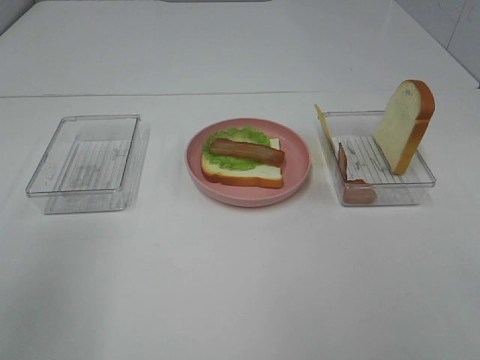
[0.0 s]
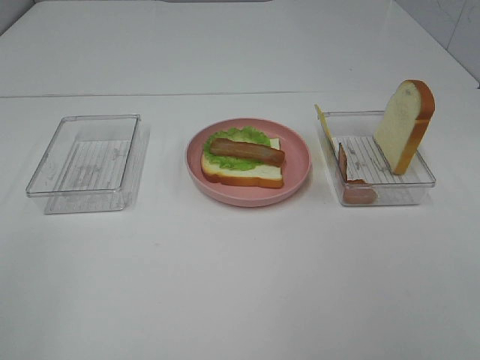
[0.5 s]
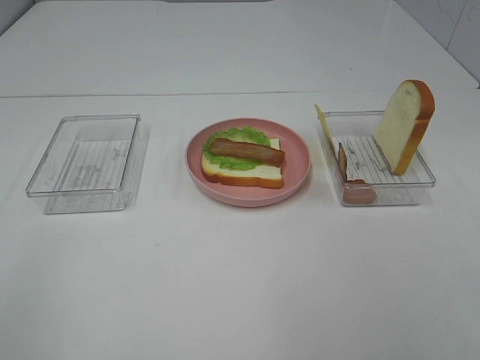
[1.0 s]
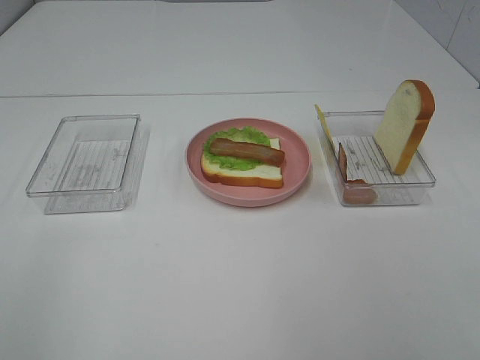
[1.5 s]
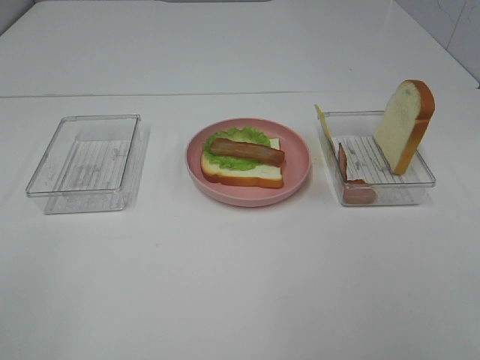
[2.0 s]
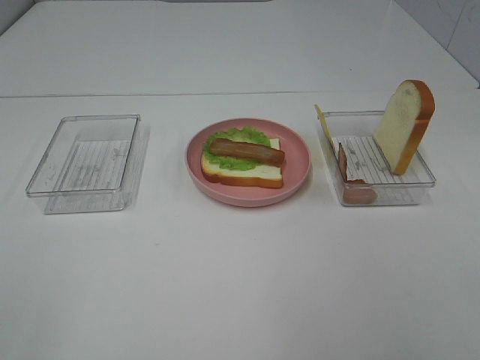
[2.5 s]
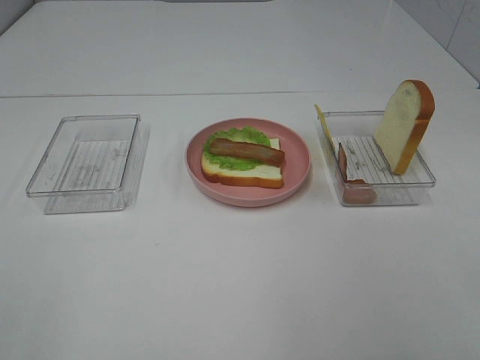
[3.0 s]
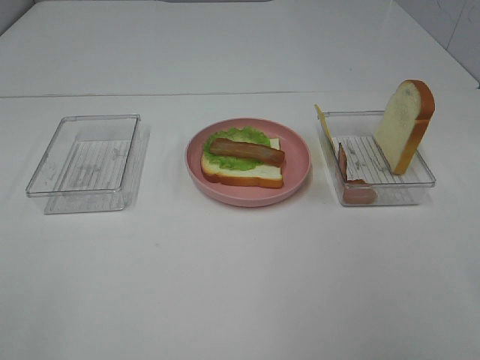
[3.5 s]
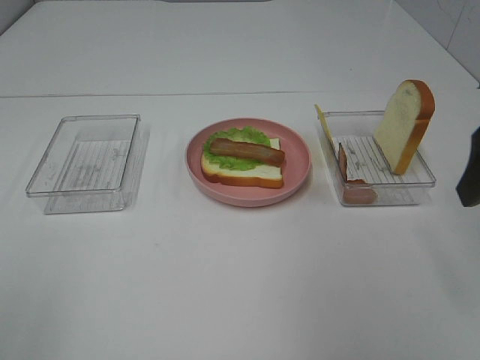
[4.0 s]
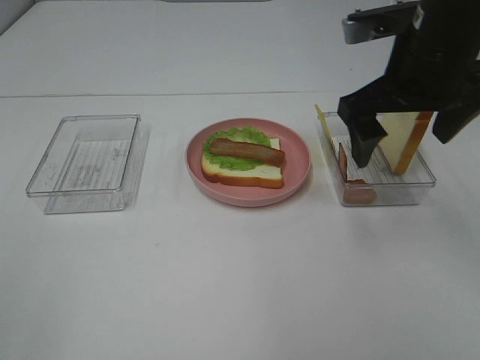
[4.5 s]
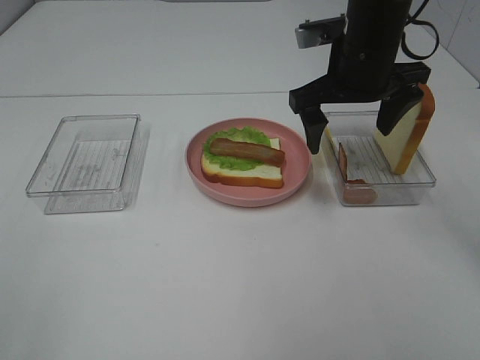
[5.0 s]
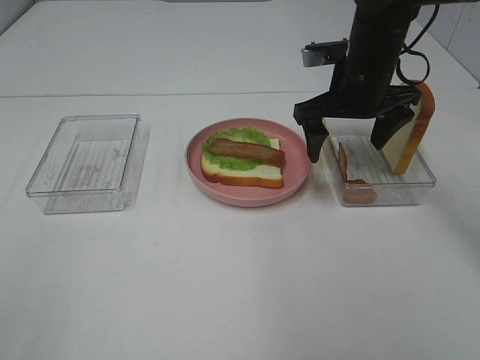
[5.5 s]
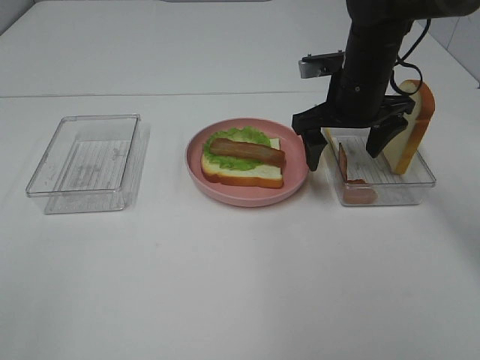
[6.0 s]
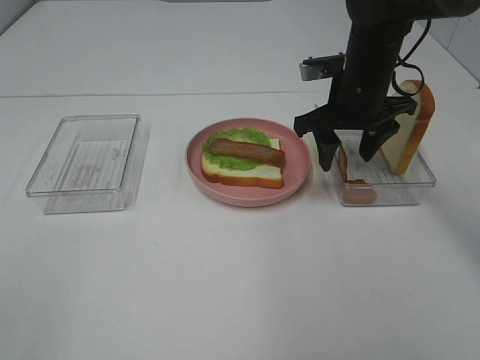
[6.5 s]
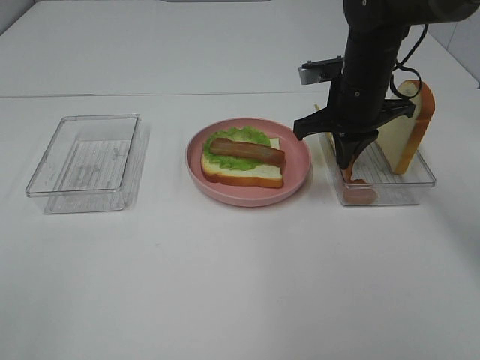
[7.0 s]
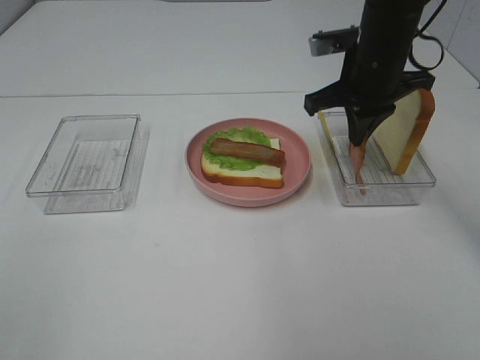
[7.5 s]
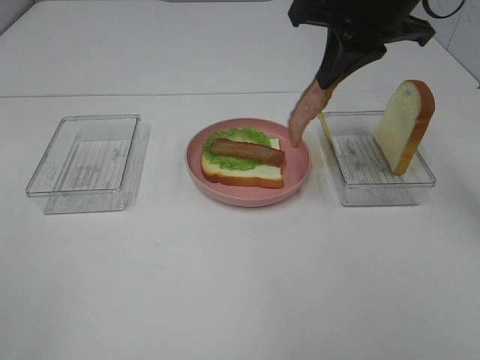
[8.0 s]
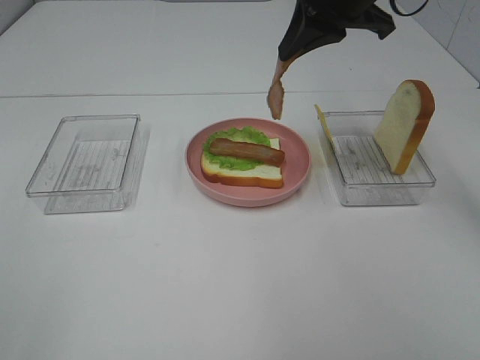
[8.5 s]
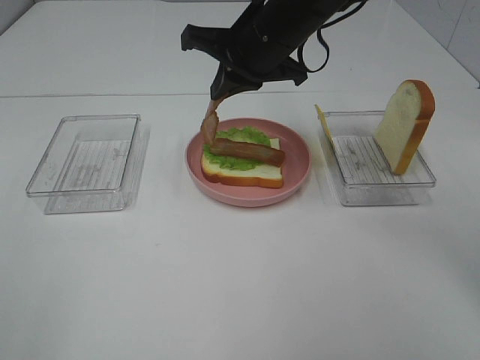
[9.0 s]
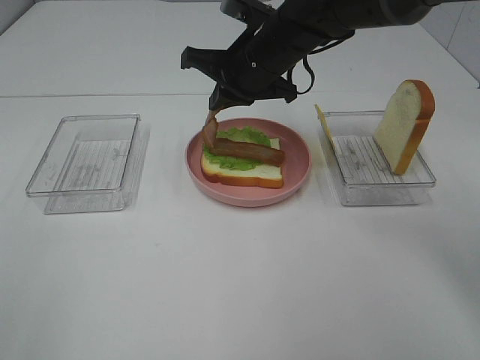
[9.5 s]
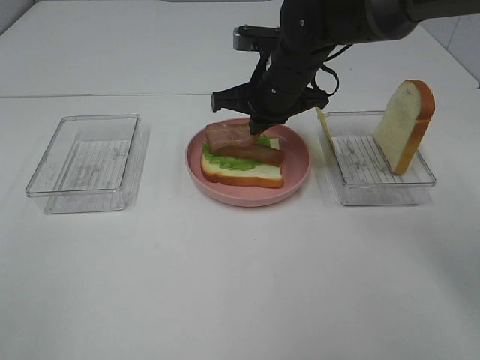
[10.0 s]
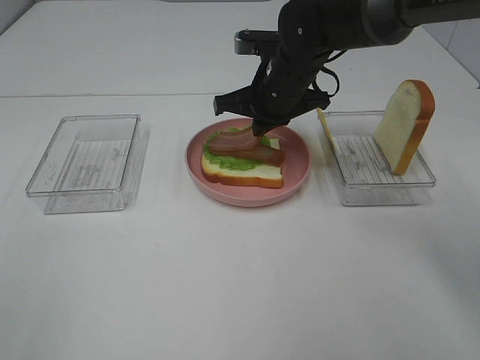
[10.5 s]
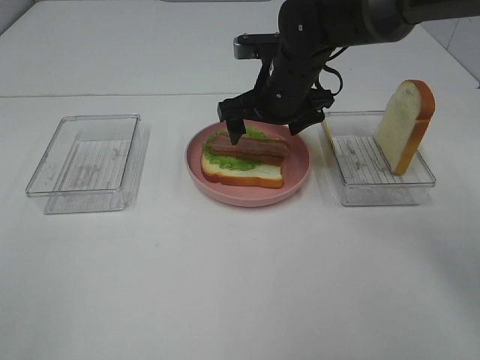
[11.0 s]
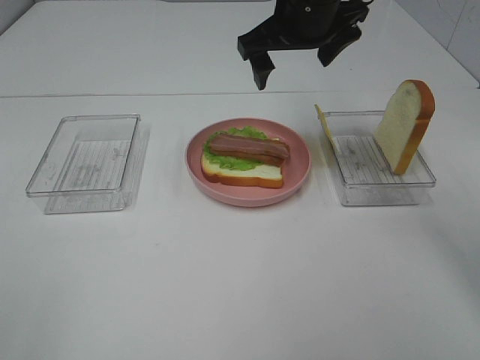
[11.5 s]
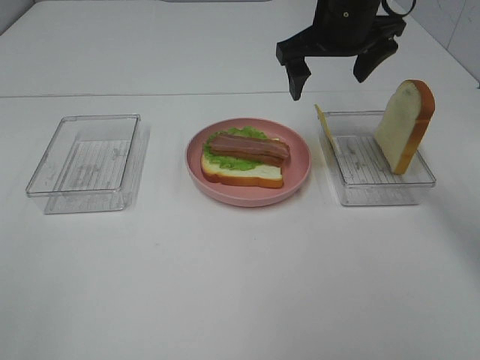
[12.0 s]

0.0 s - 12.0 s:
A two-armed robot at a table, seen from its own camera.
Task of the whole recording: Make sandwiches.
Step, 0.0 s - 6.5 s: Right hand:grab the bacon.
Step, 7.0 s - 11.0 s: Right hand:place bacon on bacon.
0.0 s - 2.0 s: The left gripper shifts about 10 cm backward.
2.0 s - 4.0 s: The right gripper heads forward, covering some 20 cm.
4.0 s - 6.0 s: The right gripper heads forward, to the left and downward, covering approximately 25 cm.
6.0 s - 8.0 s: The right gripper travels upward by approximately 15 cm, and closes.
8.0 s - 10.0 s: The right gripper is displaced downward and to the left by about 15 cm.
10.0 s - 12.0 s: The right gripper is displaced upward and to the right by about 10 cm, and opens its fingers.

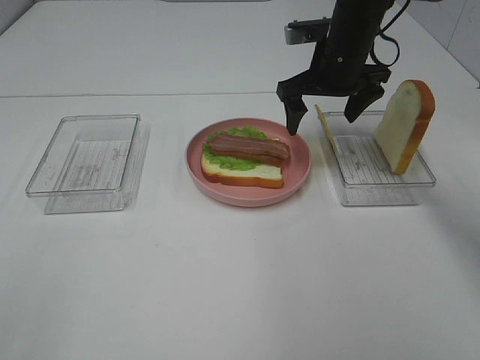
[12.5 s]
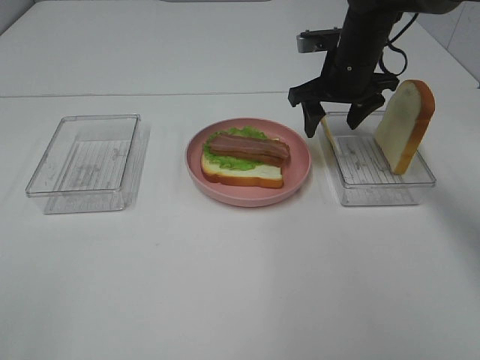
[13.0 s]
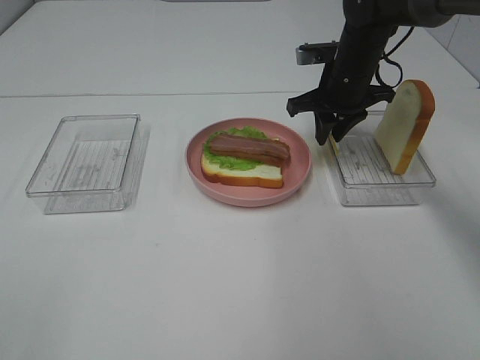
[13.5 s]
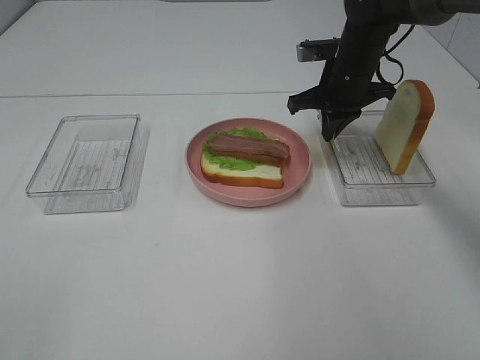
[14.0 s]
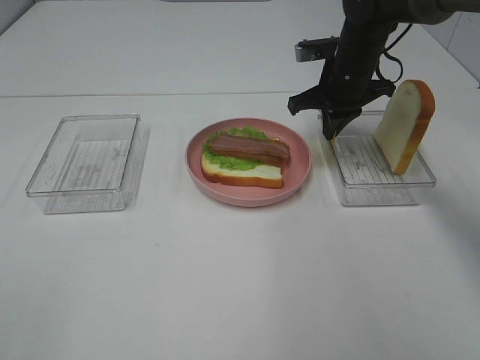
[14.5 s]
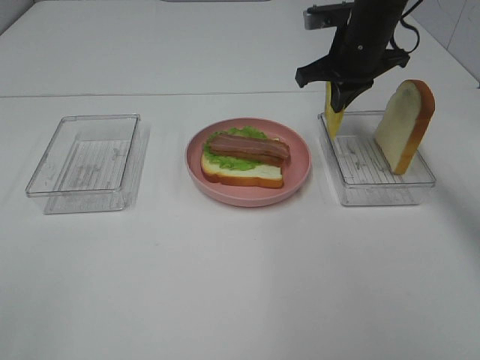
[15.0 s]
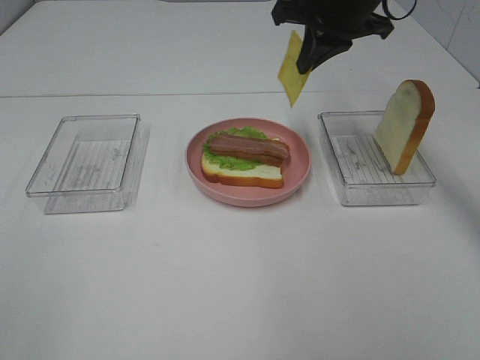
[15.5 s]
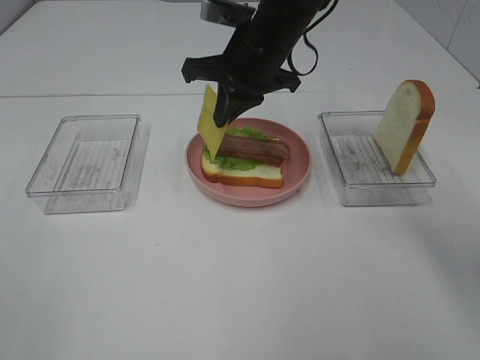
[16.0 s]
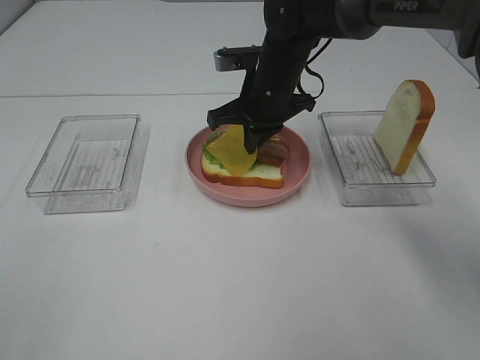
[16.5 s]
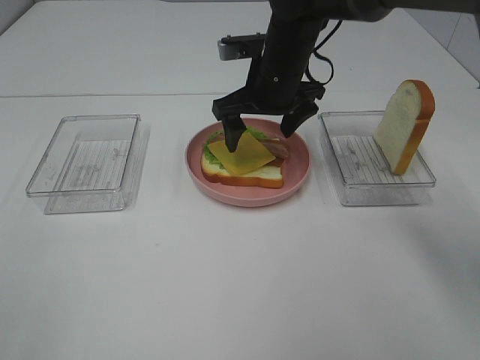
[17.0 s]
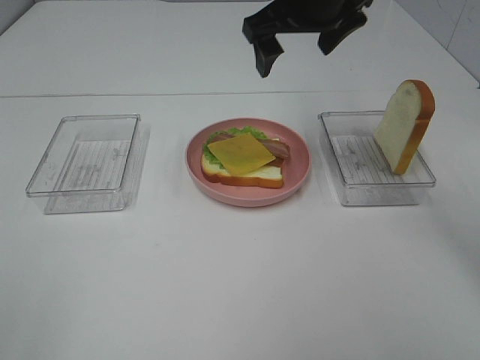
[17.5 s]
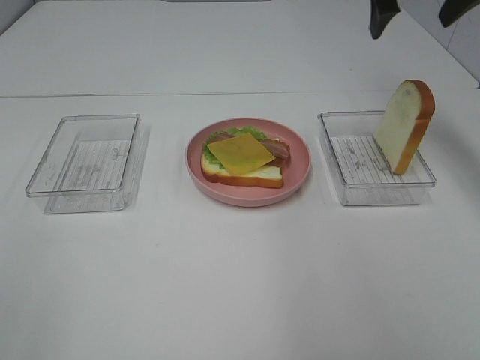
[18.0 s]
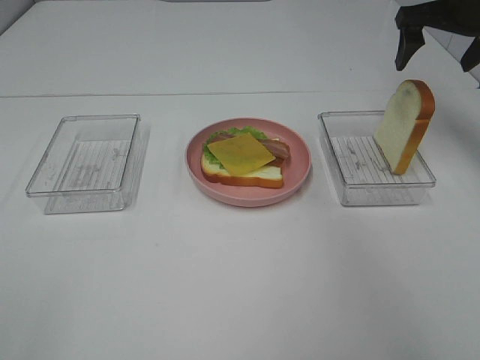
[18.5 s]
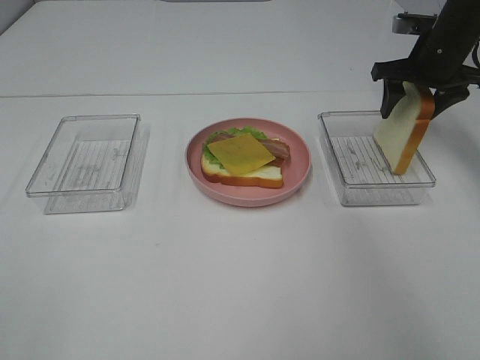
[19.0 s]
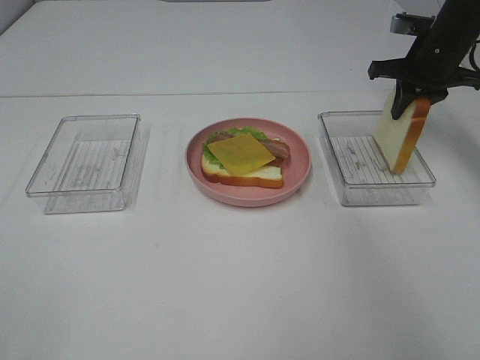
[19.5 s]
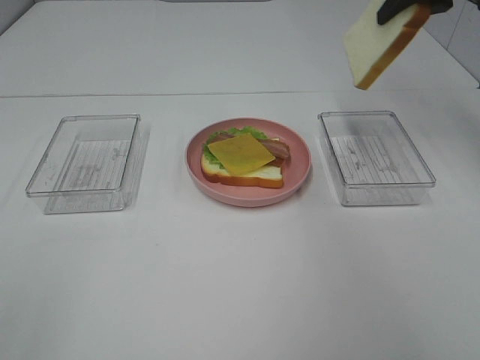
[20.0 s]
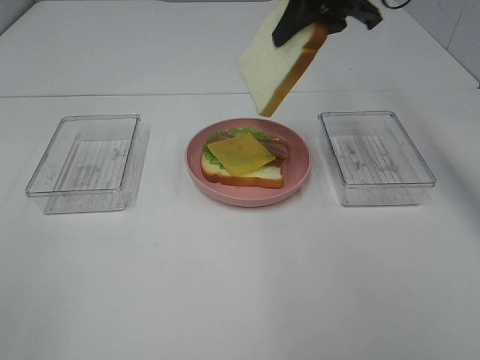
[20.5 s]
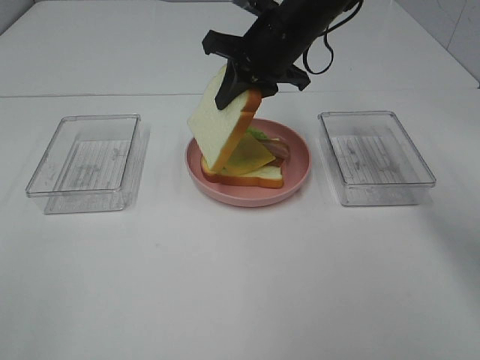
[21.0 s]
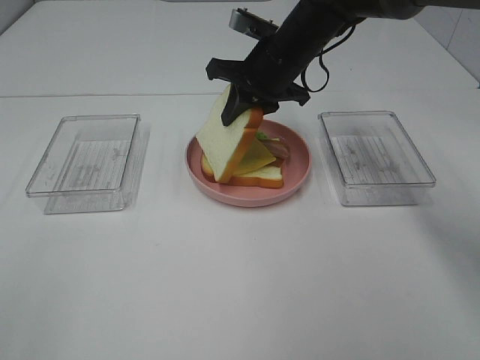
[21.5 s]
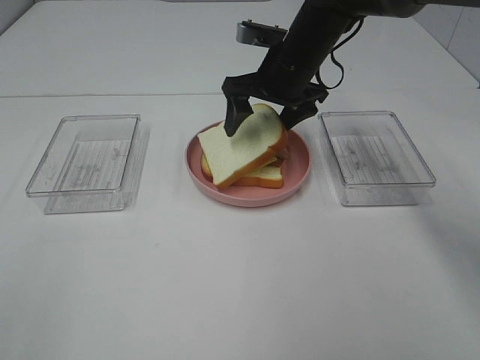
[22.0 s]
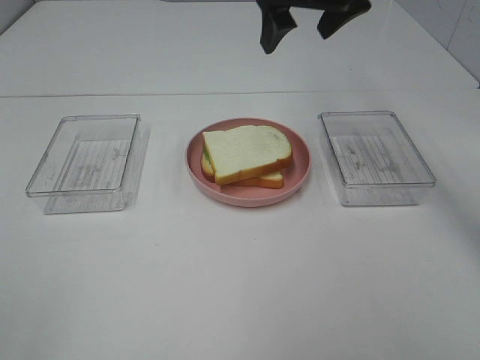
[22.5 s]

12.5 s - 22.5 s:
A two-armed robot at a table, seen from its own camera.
Task of the whole recording: Make sandwiches.
Step, 12.5 s - 14.5 s: Right hand:grab the cheese slice.
Step, 15.0 s - 17.0 s: Right hand:place the cheese slice on top of the bacon.
Step, 17.5 s - 19.0 s: Right hand:grab the bread slice.
Step, 19.5 s - 22.0 s: Right hand:place the bread slice on the cheese slice.
12.5 s - 14.5 s: The right gripper closes.
14.5 s - 16.5 s: The right gripper goes roughly 10 cm to the left.
16.5 s - 18.5 s: The right gripper shifts approximately 25 cm to the right and upward, and opens its fingers.
18.5 s - 20.5 s: The right gripper moves to the left, about 15 cm, and closes.
20.5 s - 22.5 s: The right gripper travels downward and back again, approximately 10 cm each way, and opens its fingers.

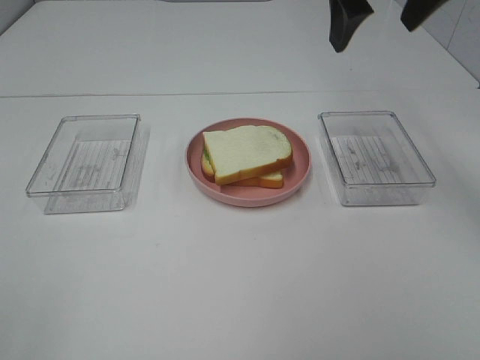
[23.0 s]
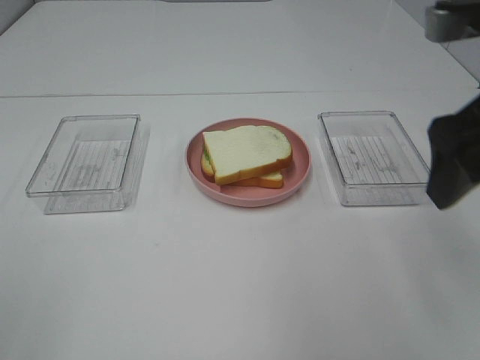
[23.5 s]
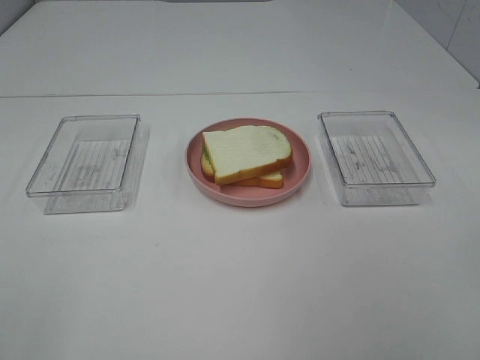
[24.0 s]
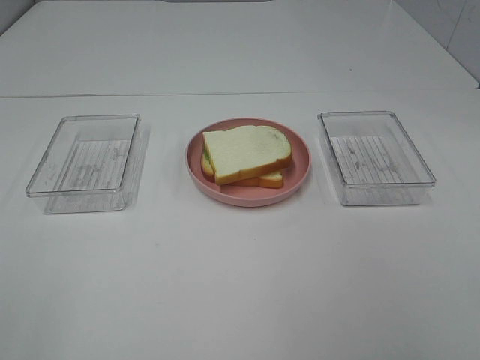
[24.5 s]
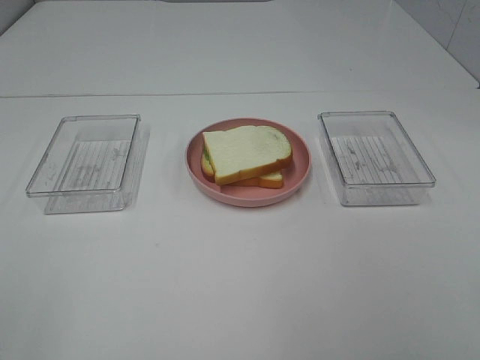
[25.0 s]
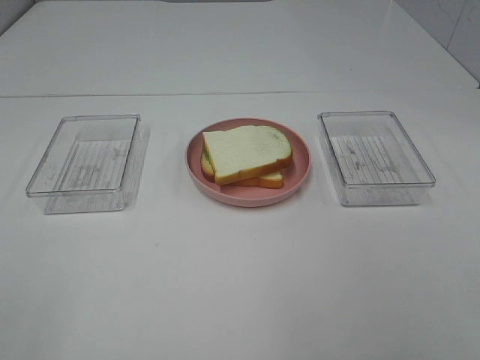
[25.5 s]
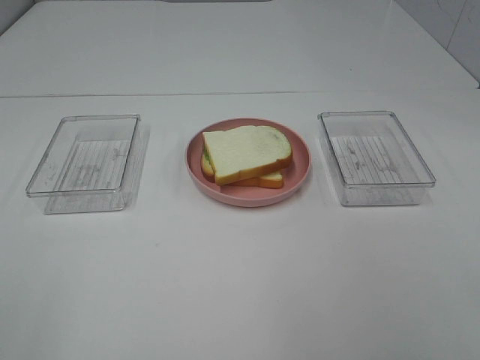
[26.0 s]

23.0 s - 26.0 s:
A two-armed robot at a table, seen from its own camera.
Task of the whole recording: Make sandwiches.
23.0 s - 24.5 s: The right gripper shifts some 35 cm backward and to the right.
